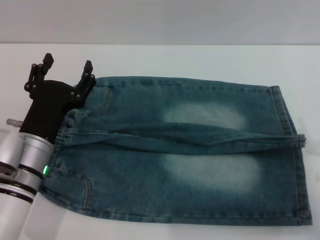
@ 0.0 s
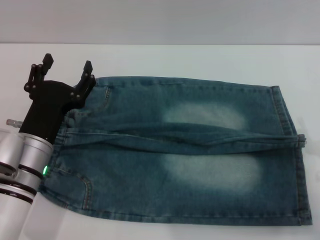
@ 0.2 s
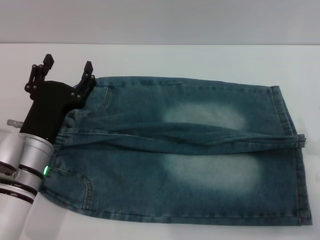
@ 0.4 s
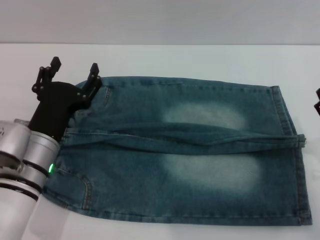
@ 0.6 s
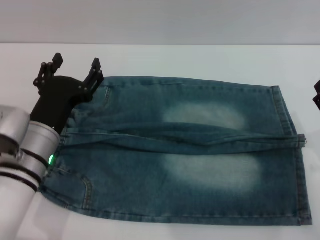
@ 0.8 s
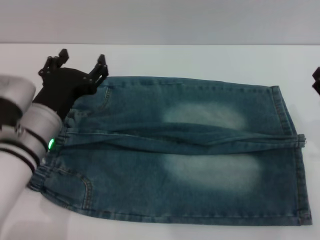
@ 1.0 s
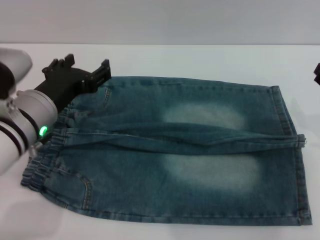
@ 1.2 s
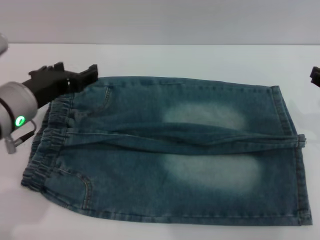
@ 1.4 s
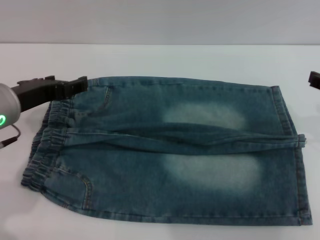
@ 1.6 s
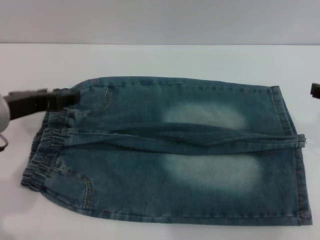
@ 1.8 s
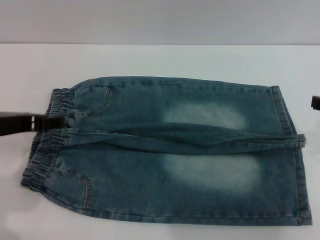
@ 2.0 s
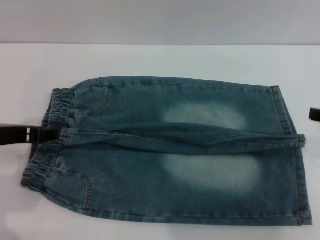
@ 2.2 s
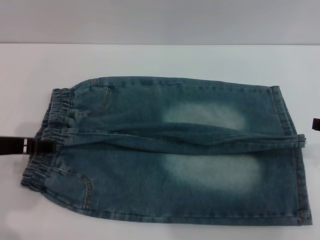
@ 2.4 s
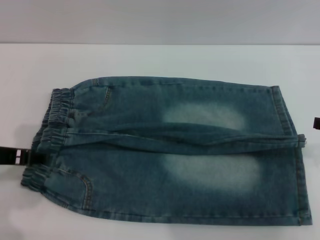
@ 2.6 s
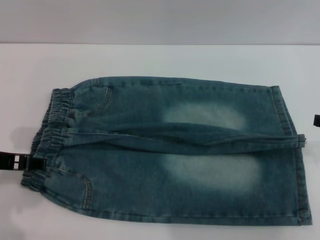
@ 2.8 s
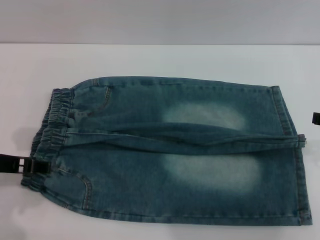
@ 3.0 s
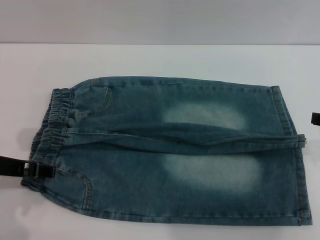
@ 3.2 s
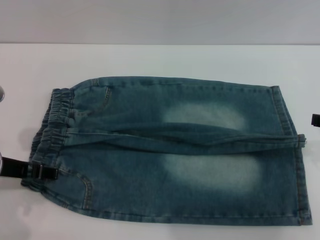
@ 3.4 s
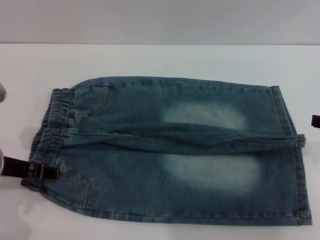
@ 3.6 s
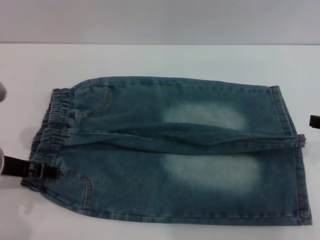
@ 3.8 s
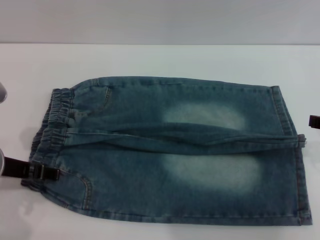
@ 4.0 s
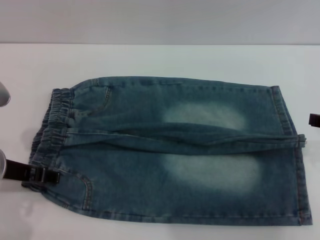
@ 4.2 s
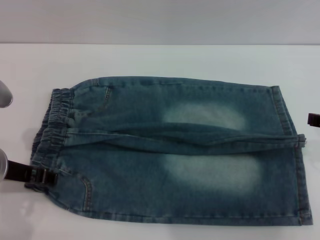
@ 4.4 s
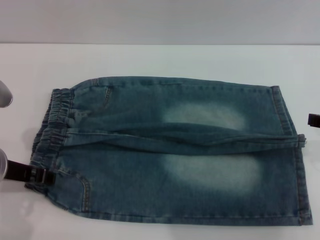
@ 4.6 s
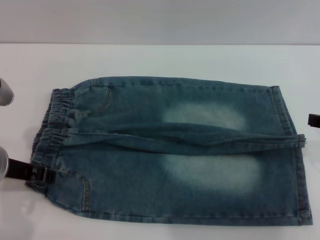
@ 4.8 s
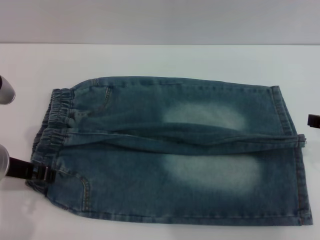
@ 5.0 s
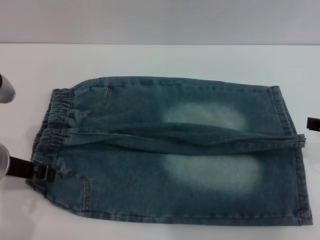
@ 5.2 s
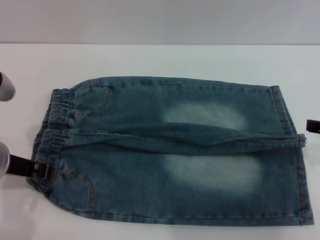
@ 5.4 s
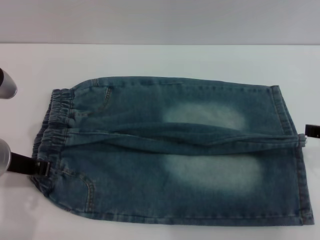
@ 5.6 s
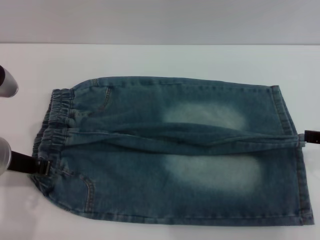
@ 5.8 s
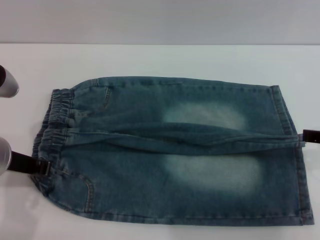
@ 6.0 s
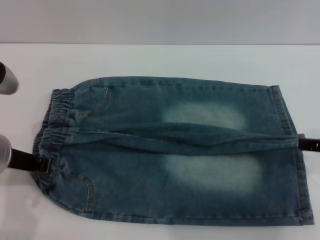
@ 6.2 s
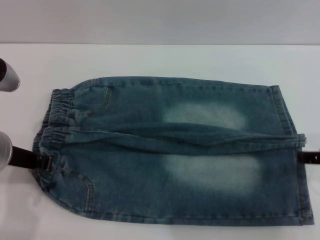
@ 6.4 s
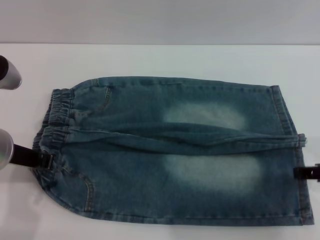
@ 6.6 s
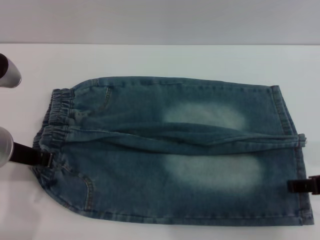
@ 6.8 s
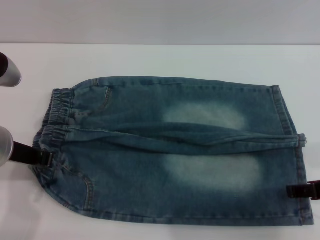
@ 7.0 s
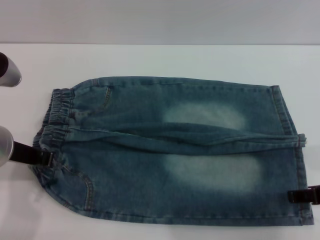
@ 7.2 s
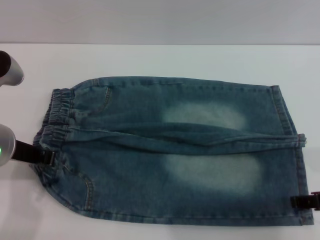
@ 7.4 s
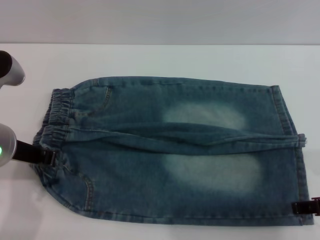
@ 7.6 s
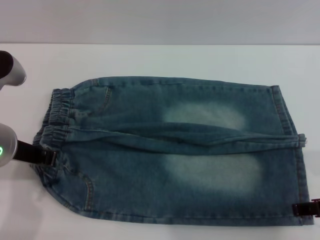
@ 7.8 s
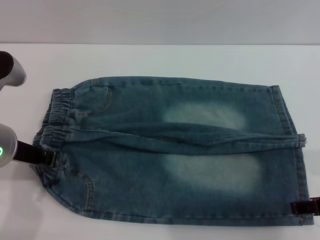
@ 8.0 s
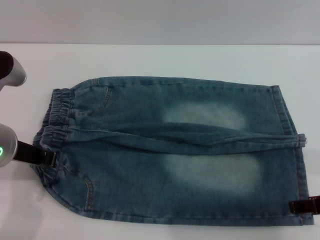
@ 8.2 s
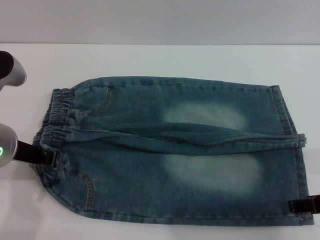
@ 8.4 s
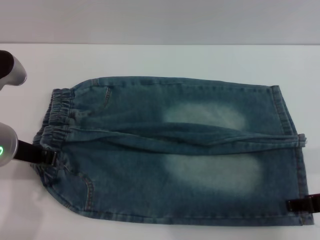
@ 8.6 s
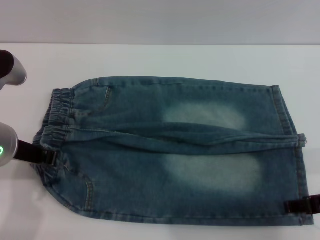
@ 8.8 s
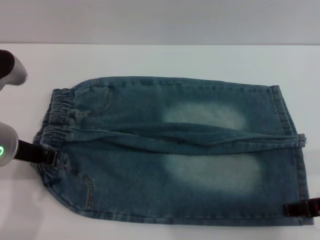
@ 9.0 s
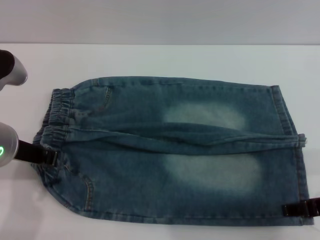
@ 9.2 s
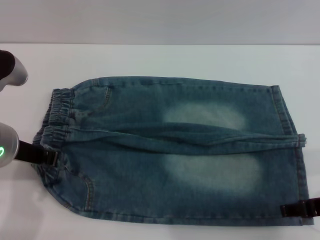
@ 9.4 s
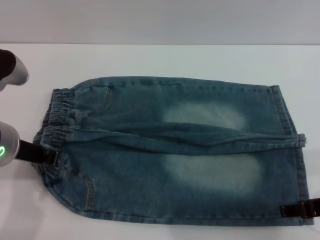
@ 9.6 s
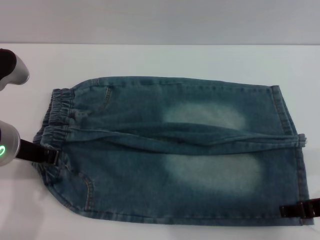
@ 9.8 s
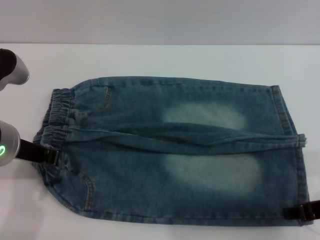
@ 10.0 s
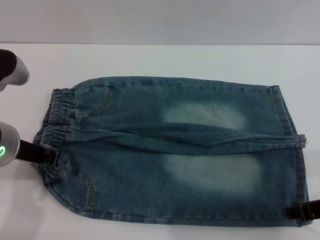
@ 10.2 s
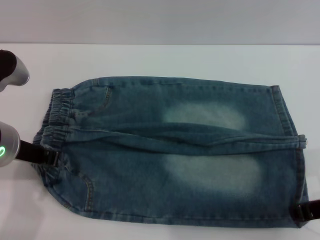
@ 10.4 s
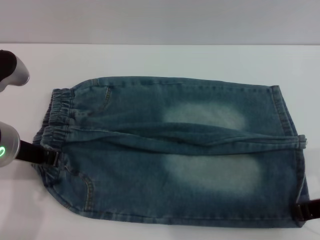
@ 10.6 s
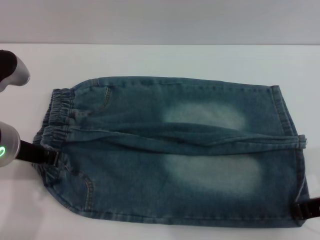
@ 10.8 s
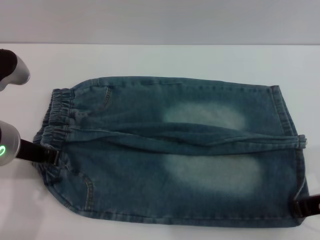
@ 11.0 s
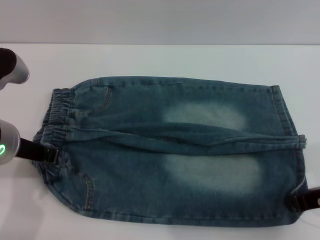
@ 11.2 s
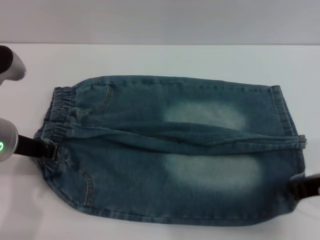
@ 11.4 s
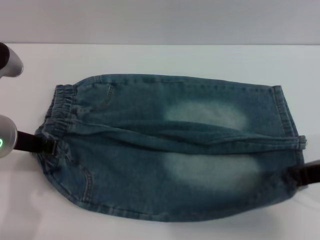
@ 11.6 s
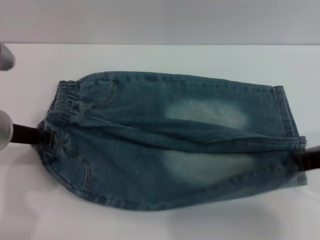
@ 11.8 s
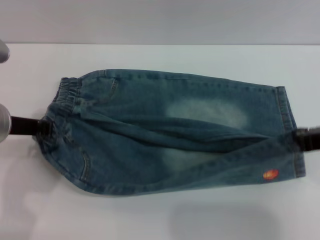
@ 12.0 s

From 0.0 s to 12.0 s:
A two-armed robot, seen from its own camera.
From 0.0 s to 1.6 s: Both grippers travel together upward, about 15 cm.
From 3.0 s to 4.4 s: The grippers move only a little.
From 4.4 s to 6.0 s: The left gripper closes.
From 6.0 s to 7.6 s: The grippers make only small movements.
From 7.6 s to 9.0 s: The two grippers keep their place.
From 9.0 s to 10.4 s: The right gripper closes.
From 10.4 s to 12.0 s: The right gripper moves some 5 cm, and closes its fingers.

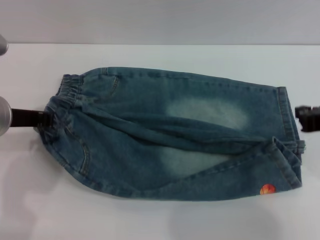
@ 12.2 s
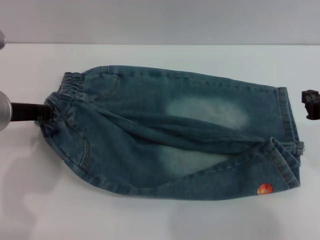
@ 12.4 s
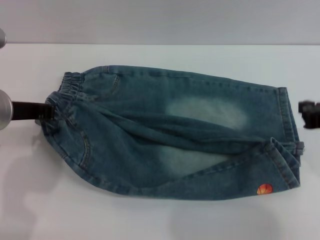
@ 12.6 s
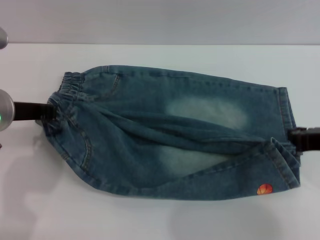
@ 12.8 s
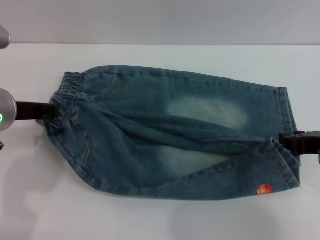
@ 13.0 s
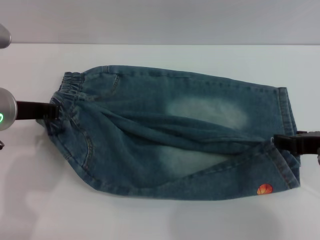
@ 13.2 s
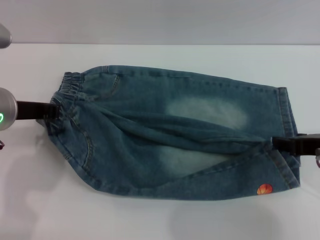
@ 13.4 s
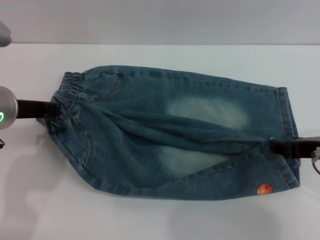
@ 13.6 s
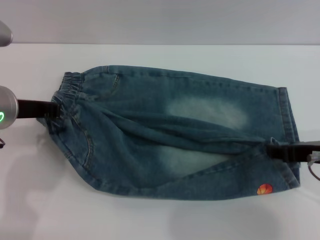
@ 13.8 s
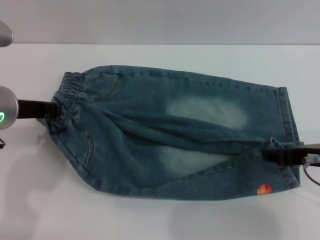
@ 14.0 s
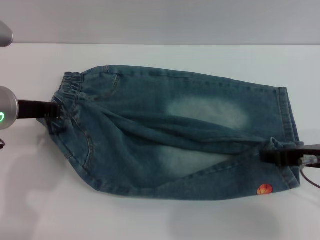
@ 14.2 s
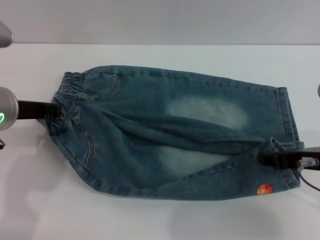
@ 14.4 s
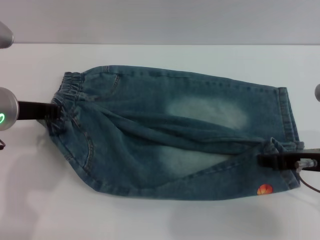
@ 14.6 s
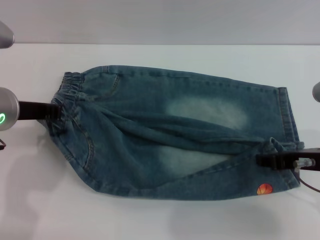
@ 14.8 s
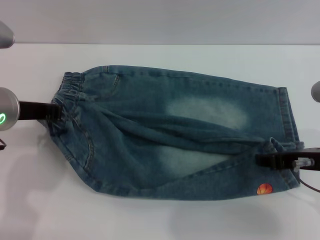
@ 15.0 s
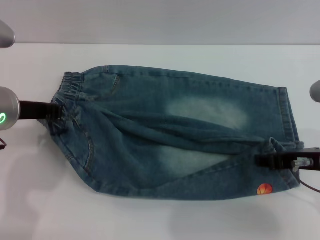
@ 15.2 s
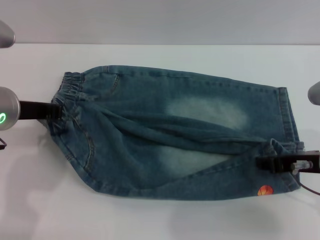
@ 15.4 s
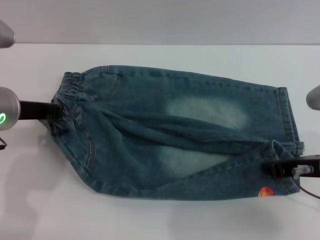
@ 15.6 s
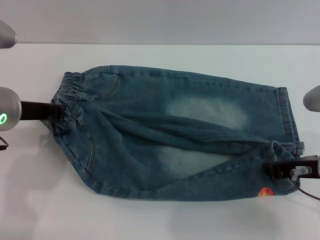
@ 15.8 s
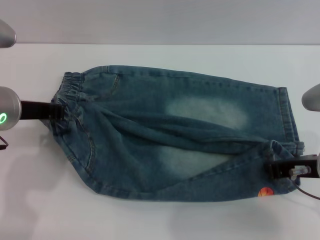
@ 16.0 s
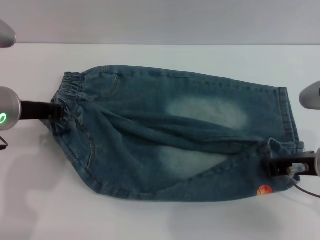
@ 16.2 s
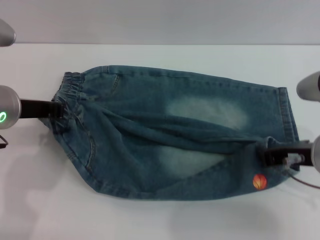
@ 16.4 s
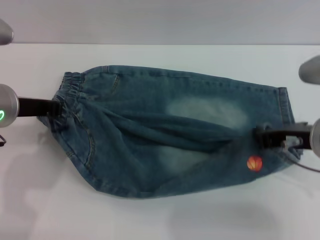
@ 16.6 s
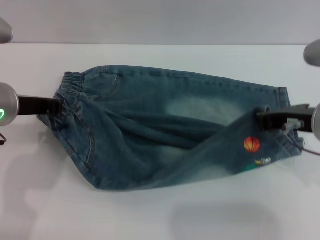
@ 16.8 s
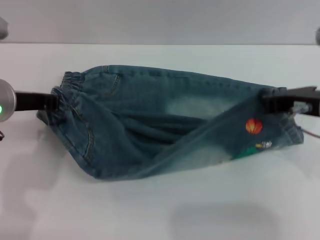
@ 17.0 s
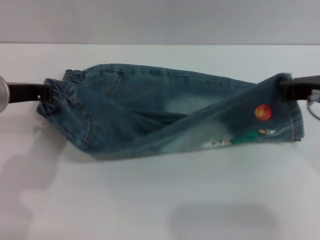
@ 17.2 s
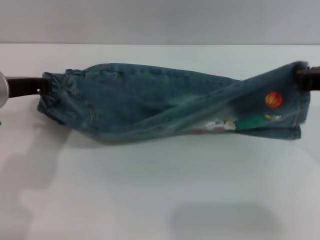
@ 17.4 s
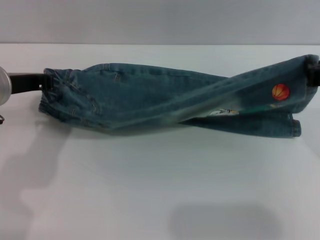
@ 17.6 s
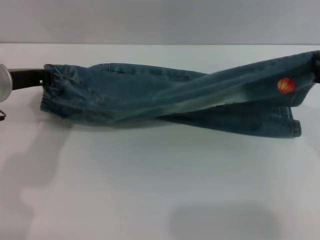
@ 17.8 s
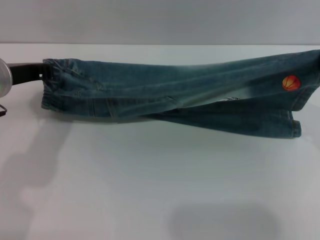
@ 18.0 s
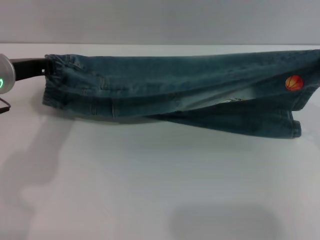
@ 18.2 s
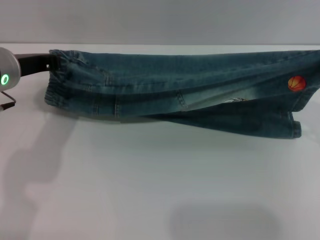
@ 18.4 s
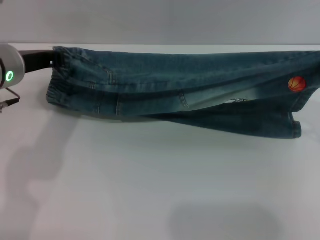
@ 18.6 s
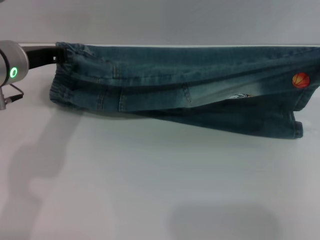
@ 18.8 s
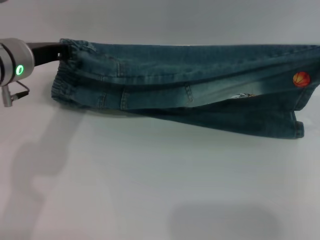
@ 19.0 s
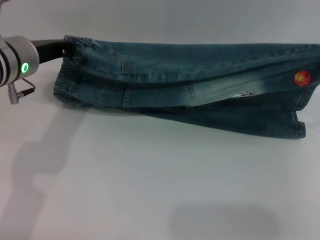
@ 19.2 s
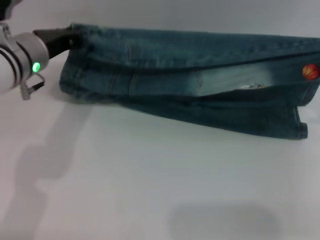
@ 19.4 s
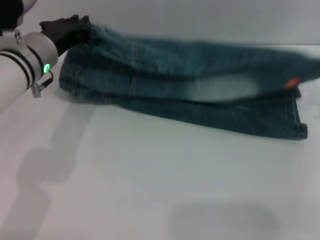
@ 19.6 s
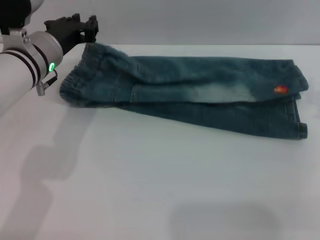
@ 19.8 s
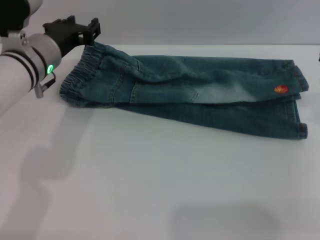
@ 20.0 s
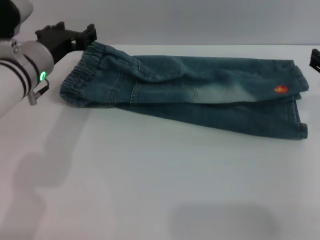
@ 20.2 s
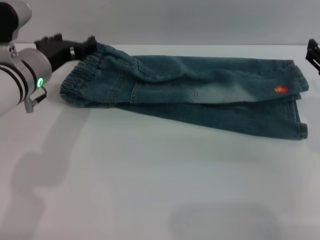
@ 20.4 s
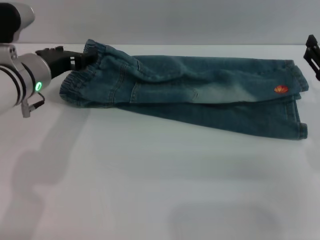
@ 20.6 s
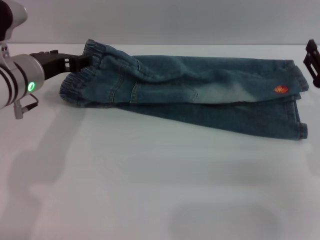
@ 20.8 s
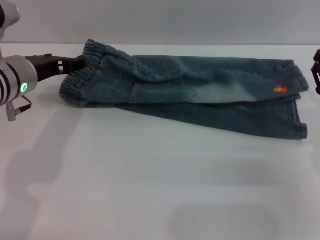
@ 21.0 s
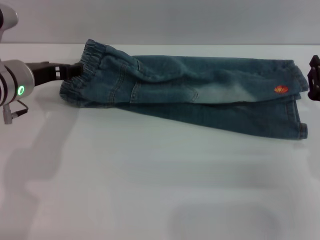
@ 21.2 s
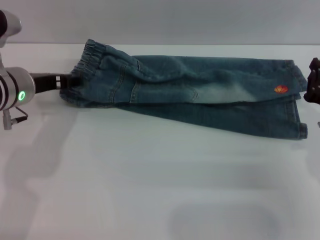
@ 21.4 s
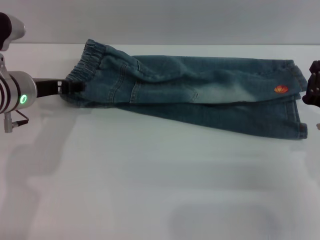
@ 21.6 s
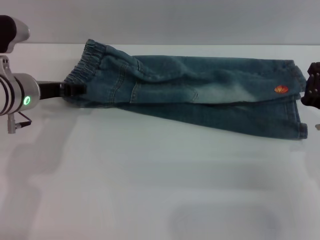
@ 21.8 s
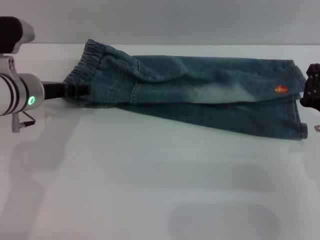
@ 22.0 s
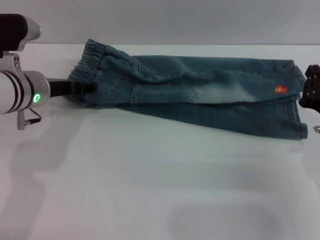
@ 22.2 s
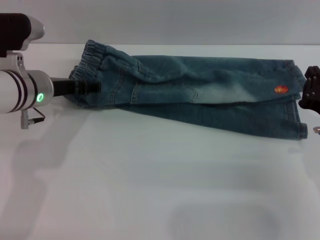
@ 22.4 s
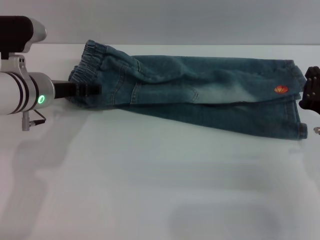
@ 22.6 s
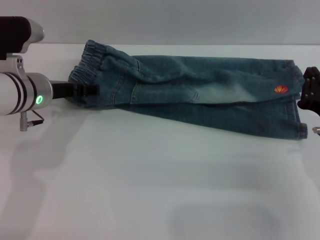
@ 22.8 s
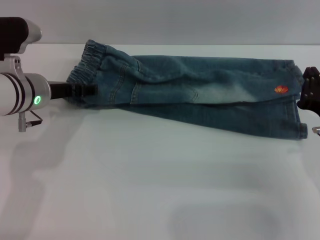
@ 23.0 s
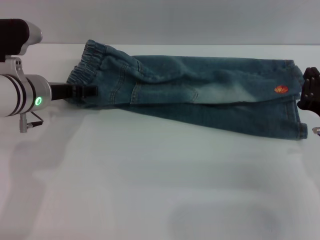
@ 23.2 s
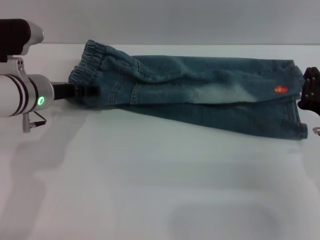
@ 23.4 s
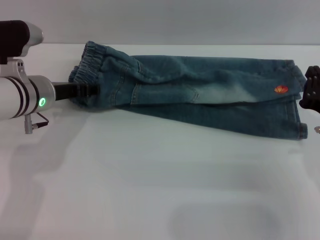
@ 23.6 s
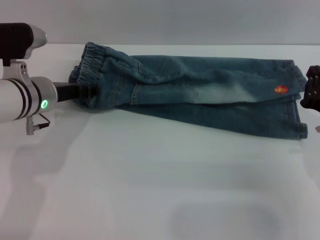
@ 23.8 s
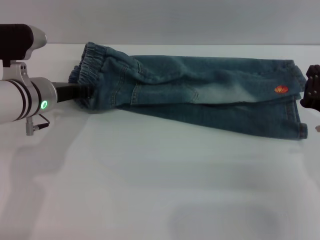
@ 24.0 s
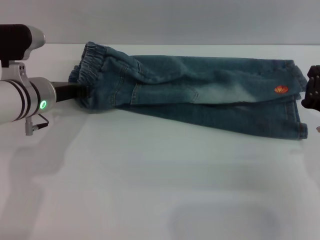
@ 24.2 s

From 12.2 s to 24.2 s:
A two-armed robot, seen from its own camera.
Step, from 12.2 s to 19.8 s: Fold the bottom of the pants upward with both grippers.
From 12.2 s to 13.8 s: The right gripper opens up.
From 13.8 s to 15.2 s: The grippers stay close to where they were, moving slightly.
From 15.2 s to 16.6 s: The right gripper closes up.
From 16.6 s to 18.2 s: The right gripper travels to the right by some 5 cm.
From 18.2 s to 19.8 s: The right gripper goes approximately 5 cm downward. Meanwhile the left gripper moves forward, roughly 5 cm.
From 19.8 s to 21.2 s: The right gripper moves downward and backward, about 10 cm, and opens, then closes once more, while the left gripper opens up.
From 21.2 s to 22.6 s: The right gripper closes.
From 22.6 s to 24.2 s: The left gripper closes its fingers.
